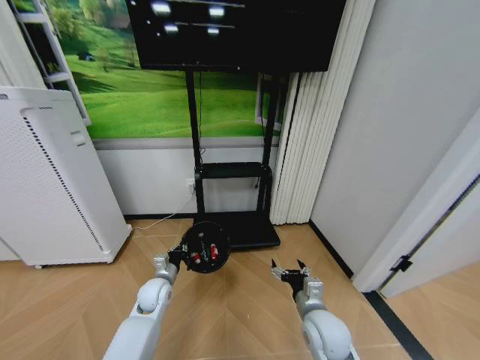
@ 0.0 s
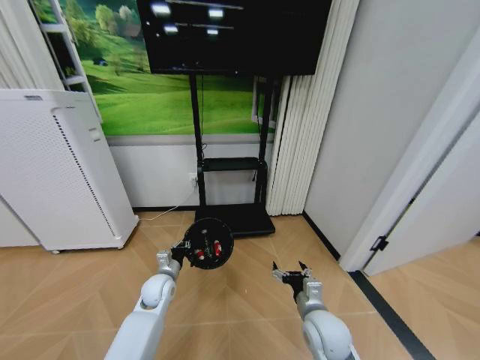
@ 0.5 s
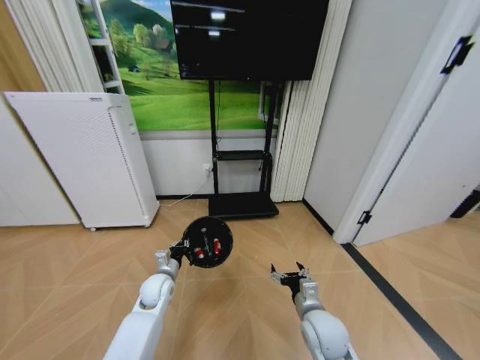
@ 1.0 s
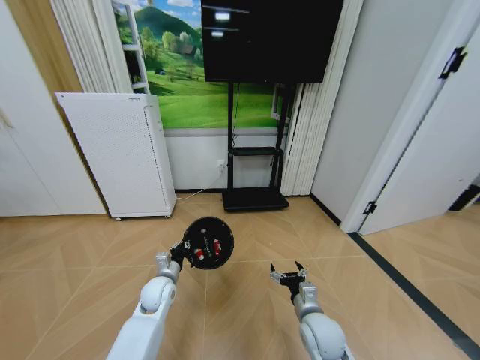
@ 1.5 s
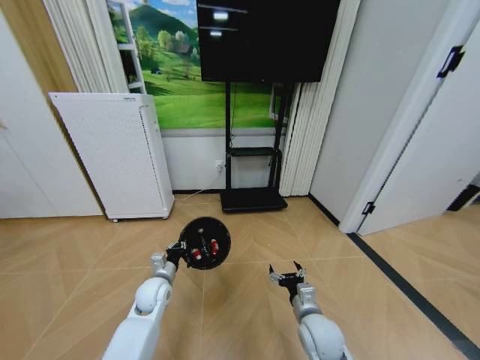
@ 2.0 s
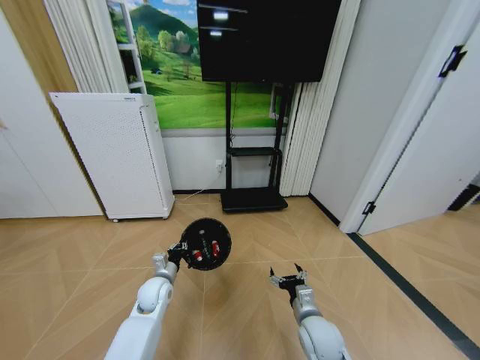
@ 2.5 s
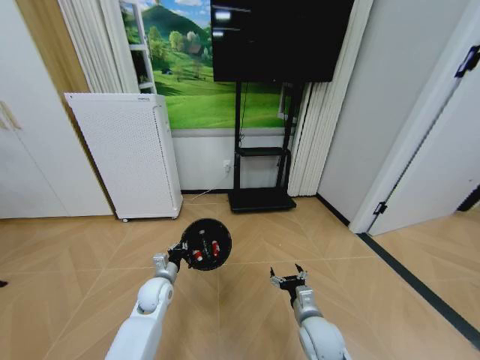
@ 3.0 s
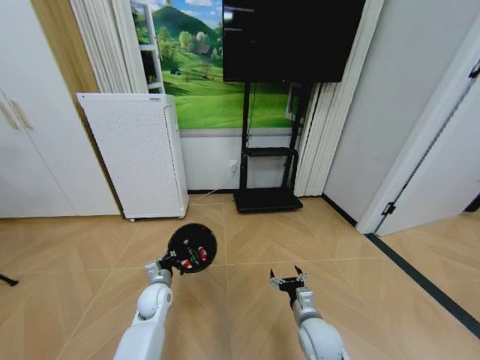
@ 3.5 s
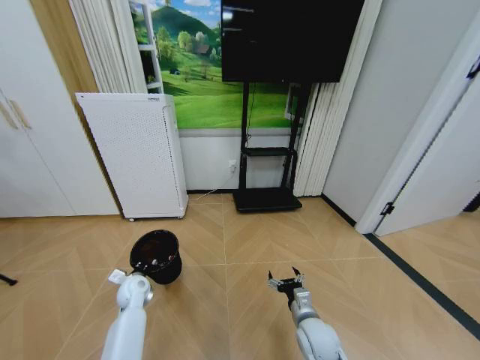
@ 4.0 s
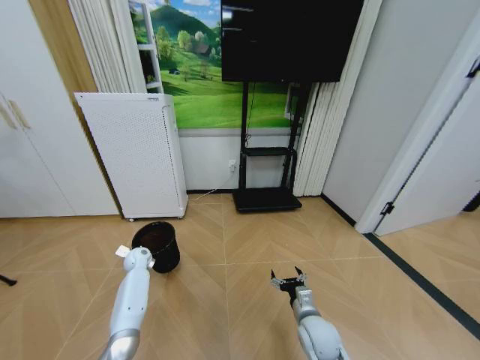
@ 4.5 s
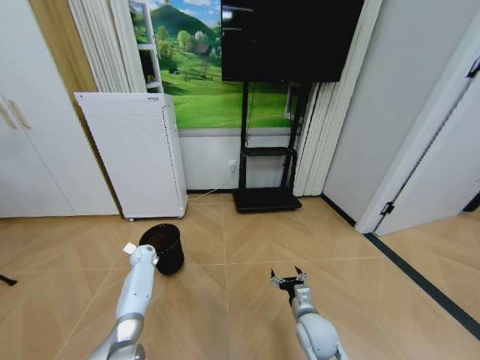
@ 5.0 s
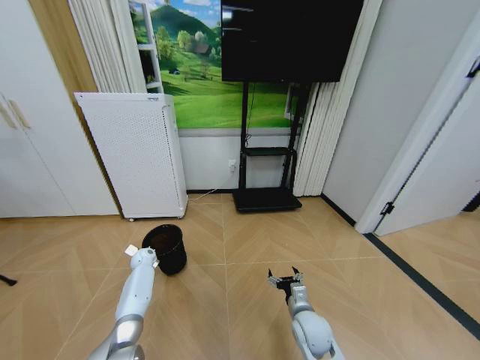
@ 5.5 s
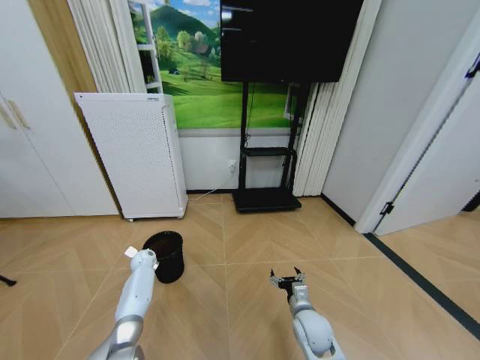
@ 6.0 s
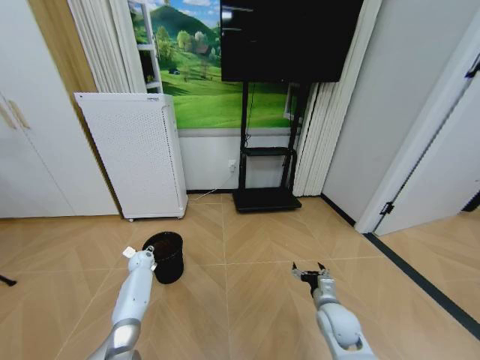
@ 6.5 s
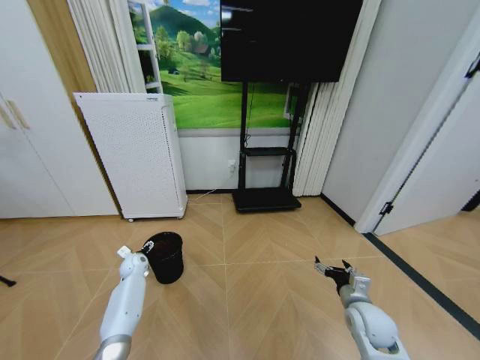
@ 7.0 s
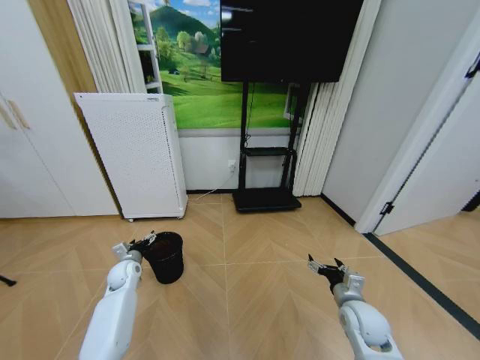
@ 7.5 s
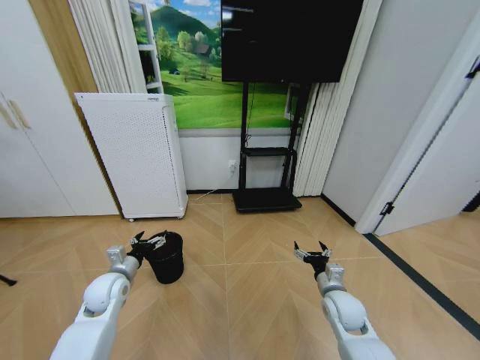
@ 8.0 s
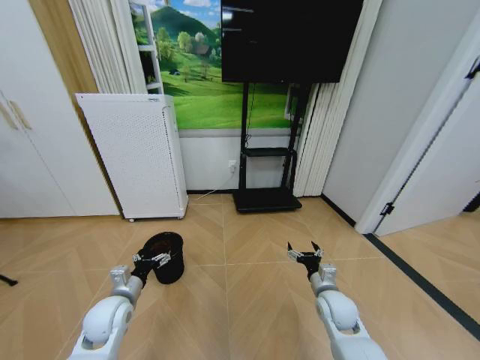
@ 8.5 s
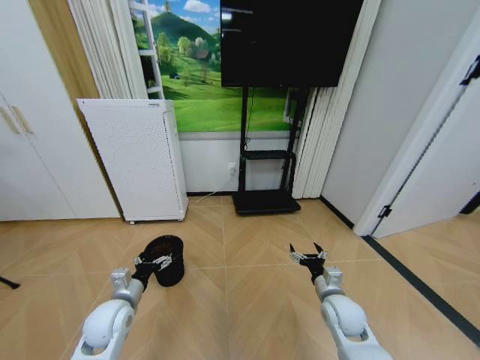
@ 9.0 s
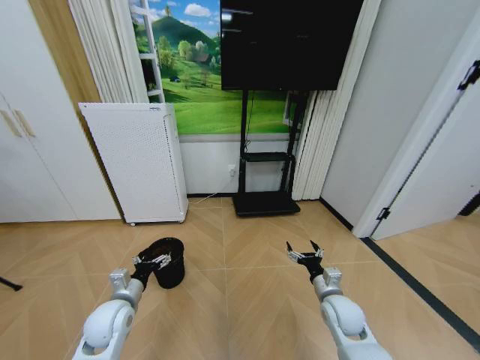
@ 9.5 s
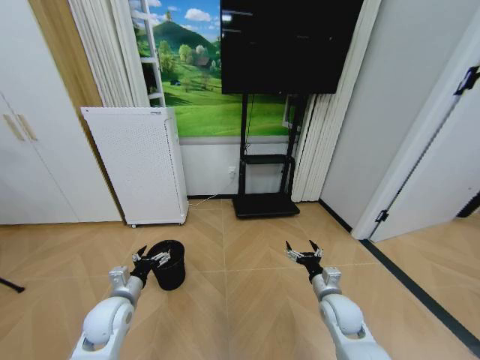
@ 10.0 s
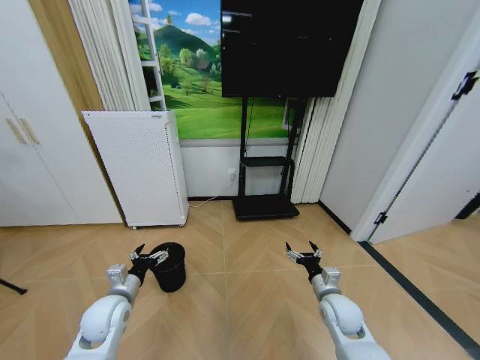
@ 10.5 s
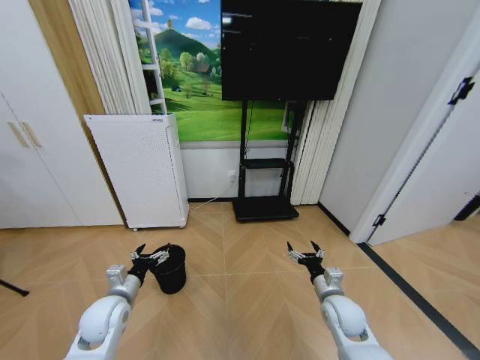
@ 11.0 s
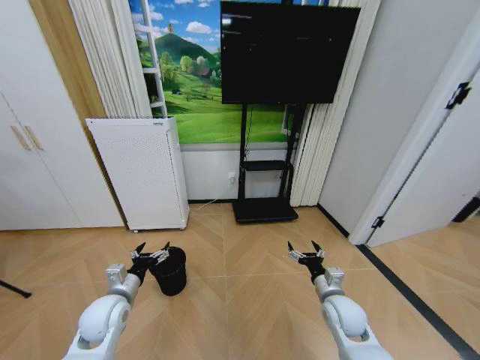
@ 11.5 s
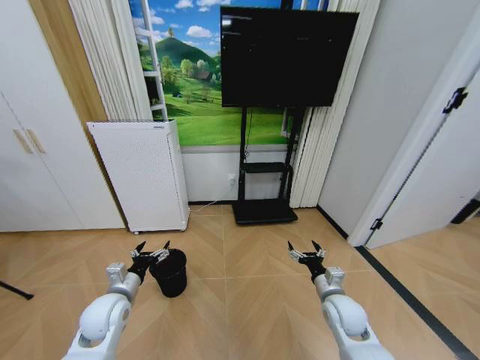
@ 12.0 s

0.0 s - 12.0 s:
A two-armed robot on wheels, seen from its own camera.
Task of the whole recording: Pick up the trash bin and place the garbage on the floor into it.
2.0 s - 4.0 s: The left gripper goes approximately 10 cm to the left.
4.0 s - 6.0 s: The left gripper travels forward by approximately 15 cm.
6.0 s - 8.0 s: The left gripper goes some 25 cm backward and upward, and opens up. Meanwhile the right gripper heads to the right, covering approximately 10 cm.
8.0 s - 10.0 s: The left gripper travels backward by some 5 cm.
10.0 s - 12.0 s: Both grippers stay about where they are.

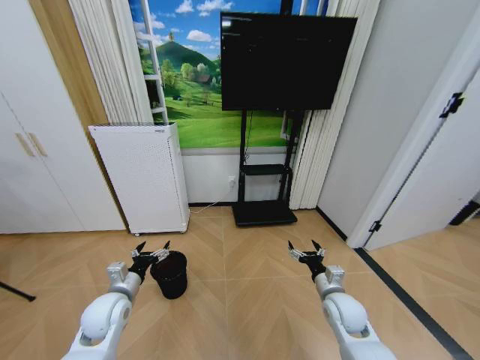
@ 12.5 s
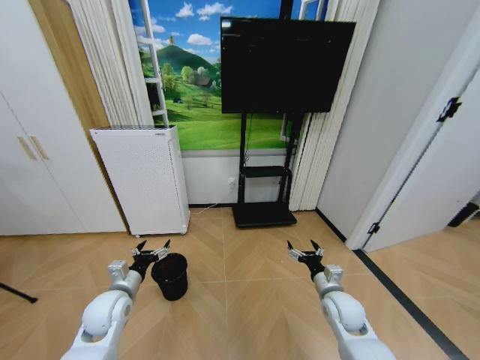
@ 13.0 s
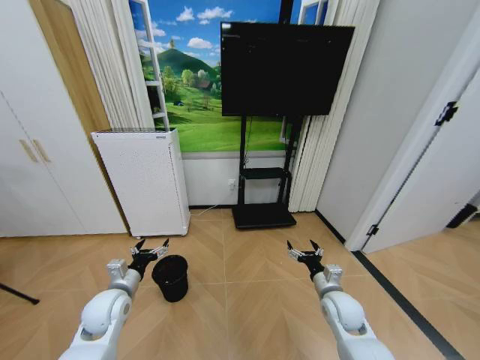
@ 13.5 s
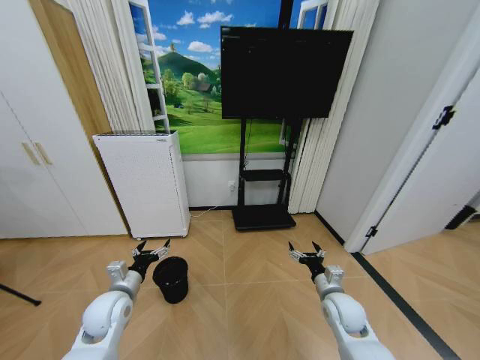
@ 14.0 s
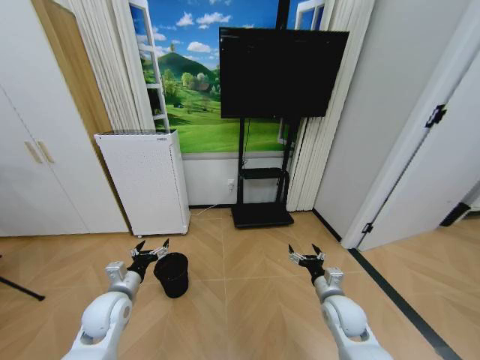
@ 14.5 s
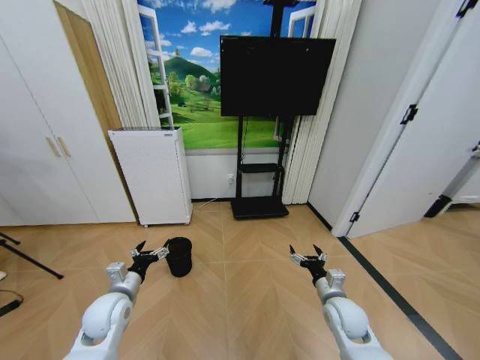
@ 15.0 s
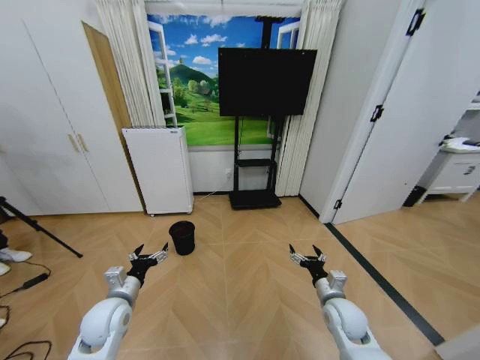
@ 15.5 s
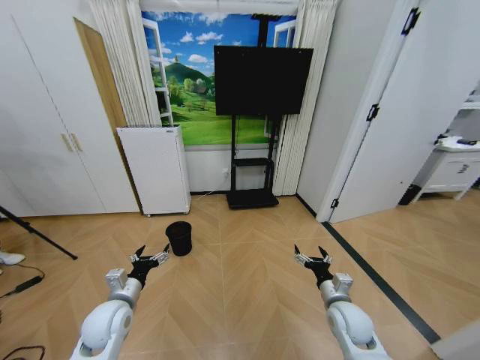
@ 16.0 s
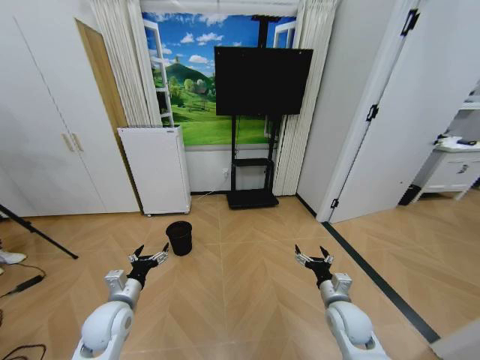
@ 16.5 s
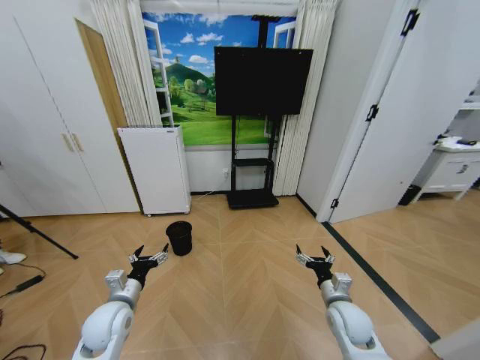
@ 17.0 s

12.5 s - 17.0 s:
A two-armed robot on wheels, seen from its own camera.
Task of the whole recording: Pick up the trash bin and place the garbage on the floor into it.
12.5 s - 14.5 s: The two grippers keep their place.
